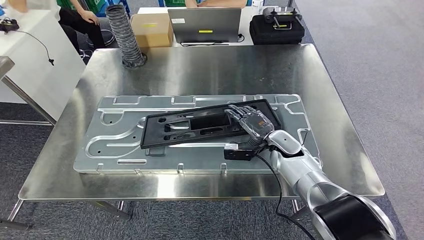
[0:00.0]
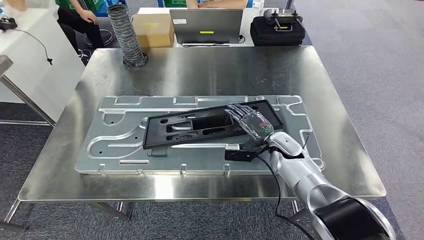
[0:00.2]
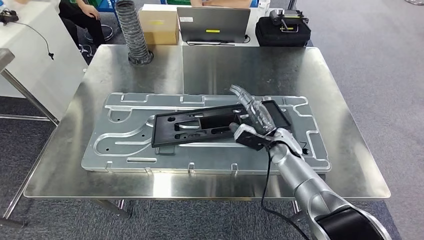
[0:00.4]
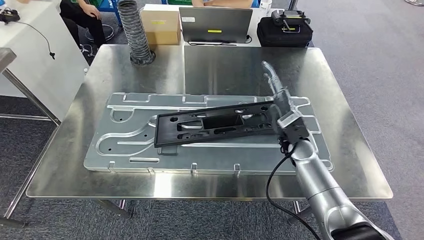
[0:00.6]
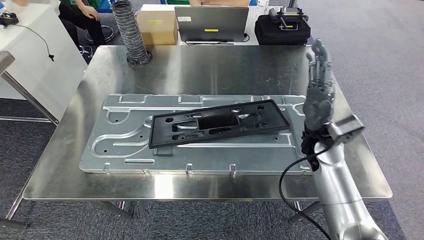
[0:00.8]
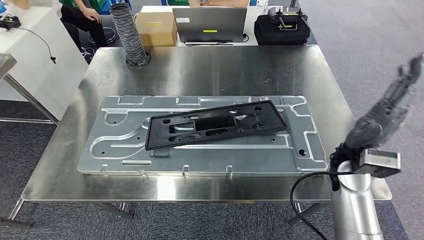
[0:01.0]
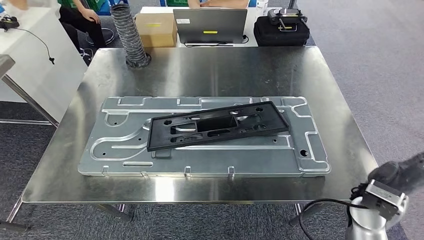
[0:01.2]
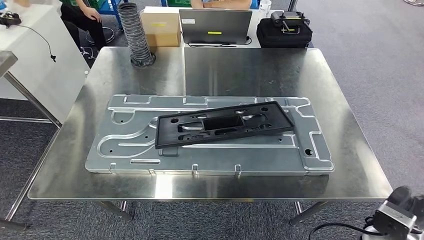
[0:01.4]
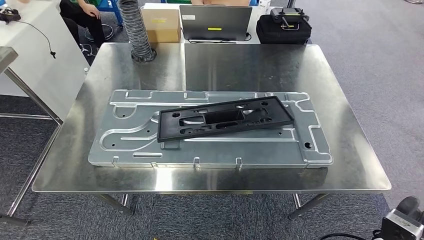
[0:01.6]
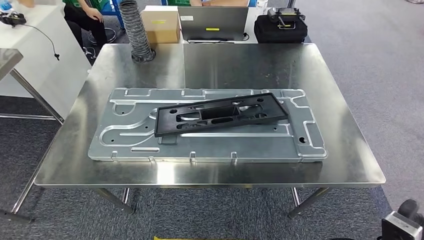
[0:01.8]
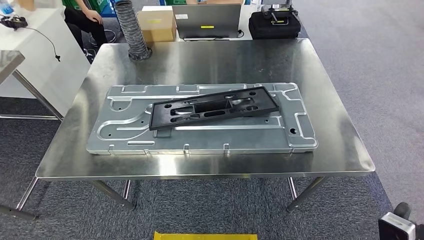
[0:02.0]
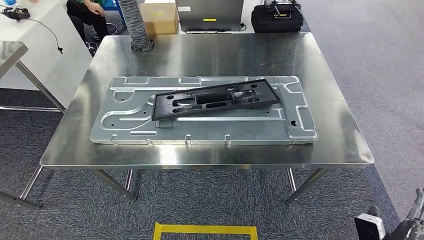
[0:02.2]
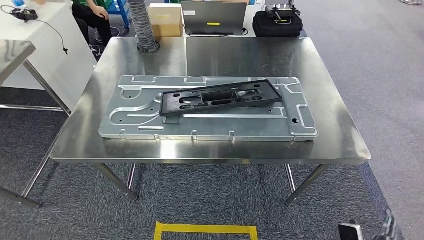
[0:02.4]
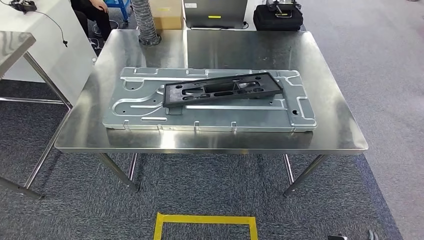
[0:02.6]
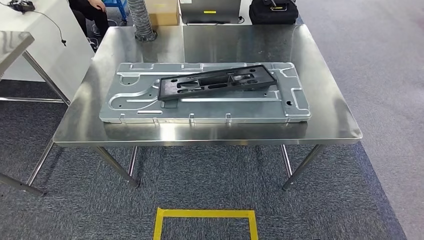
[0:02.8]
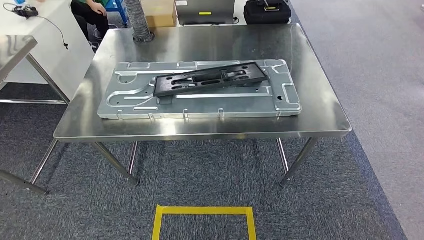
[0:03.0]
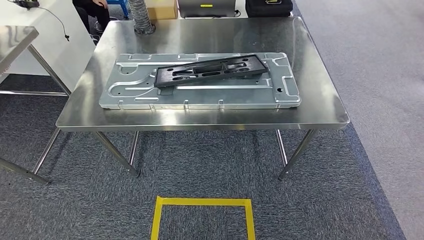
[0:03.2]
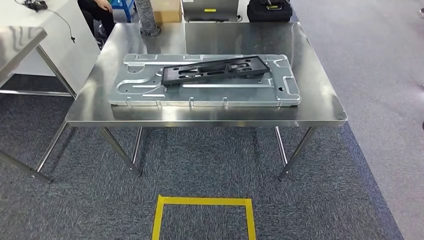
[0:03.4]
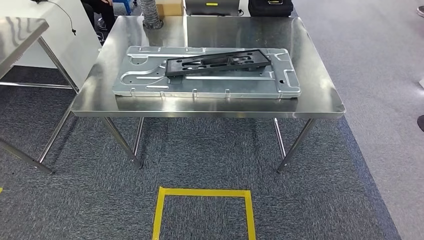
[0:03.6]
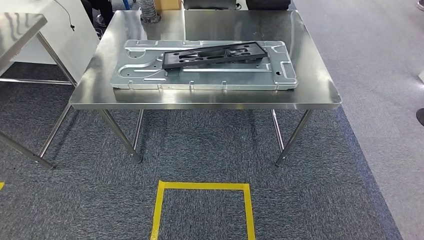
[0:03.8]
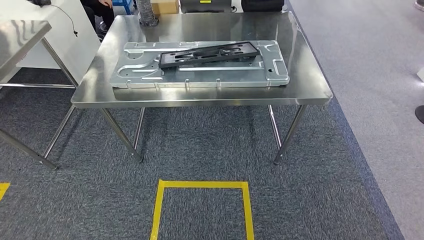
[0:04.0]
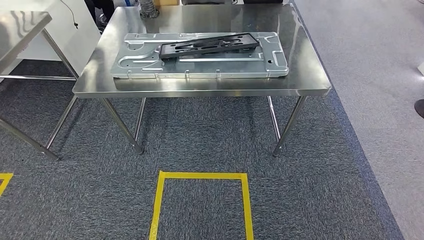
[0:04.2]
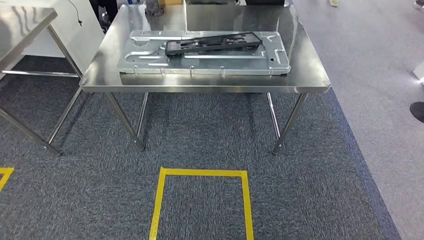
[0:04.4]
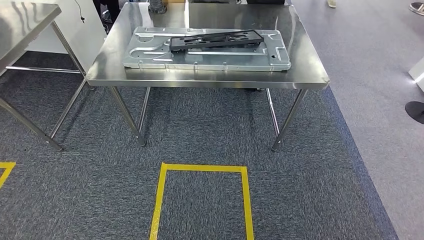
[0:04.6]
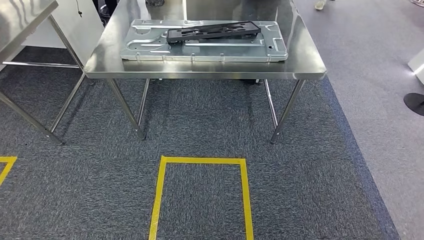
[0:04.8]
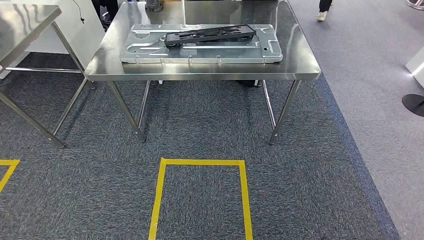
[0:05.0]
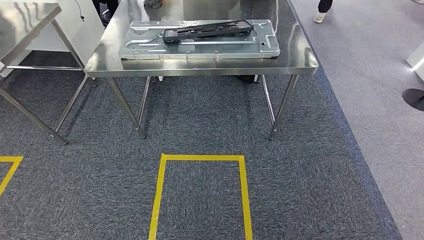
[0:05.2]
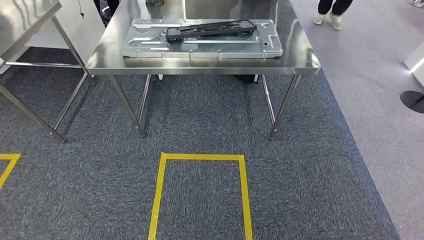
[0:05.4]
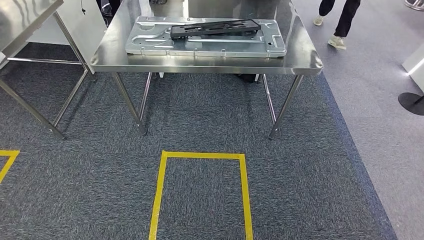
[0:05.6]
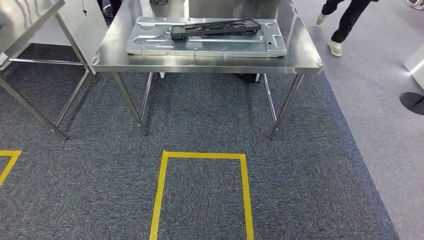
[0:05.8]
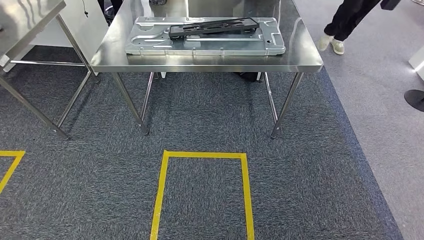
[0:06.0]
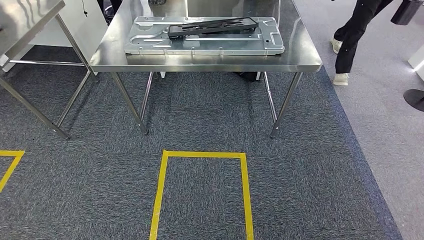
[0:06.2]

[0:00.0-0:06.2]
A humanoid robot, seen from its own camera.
Step, 0:02.0 to 0:06.2: Move to the initial position of the shelf.
